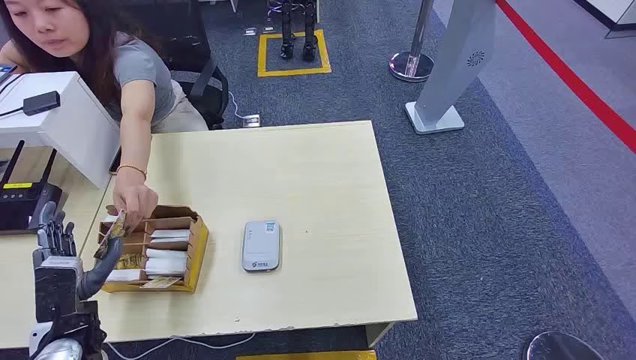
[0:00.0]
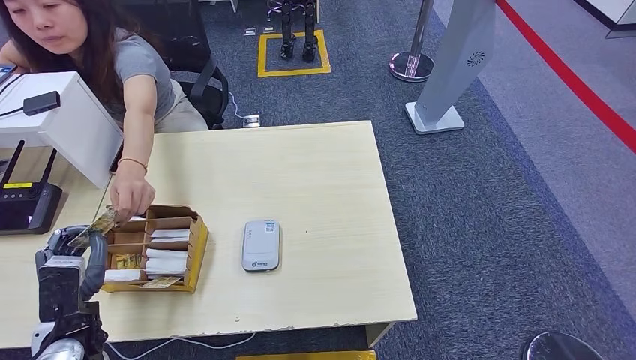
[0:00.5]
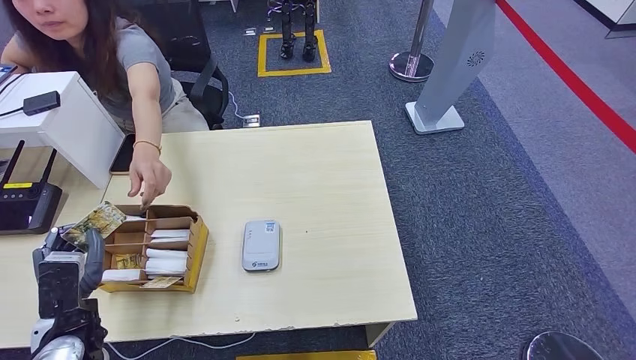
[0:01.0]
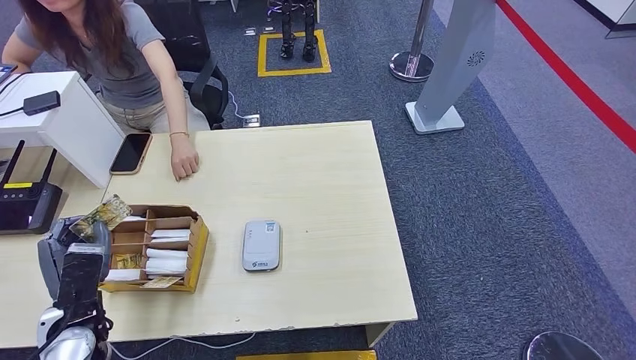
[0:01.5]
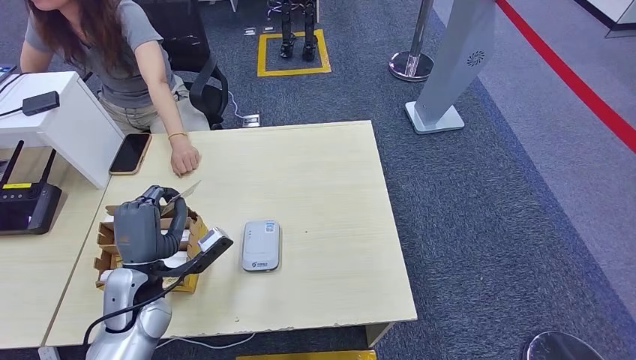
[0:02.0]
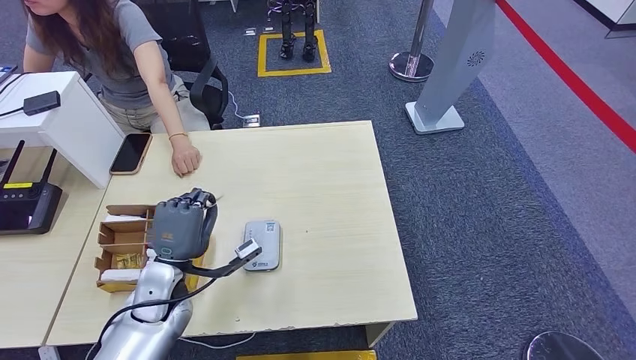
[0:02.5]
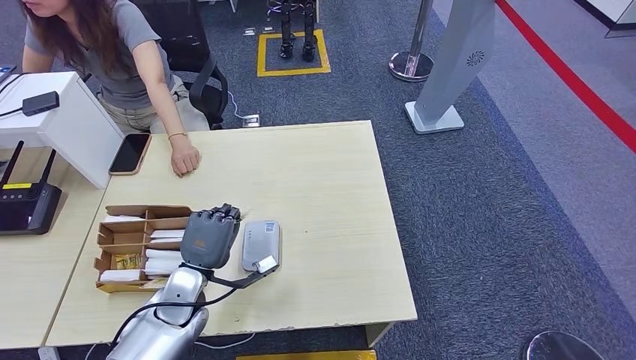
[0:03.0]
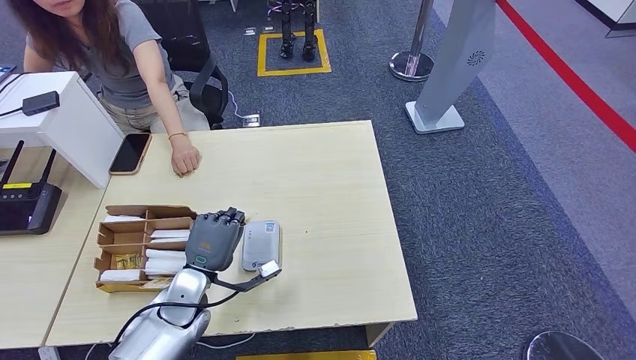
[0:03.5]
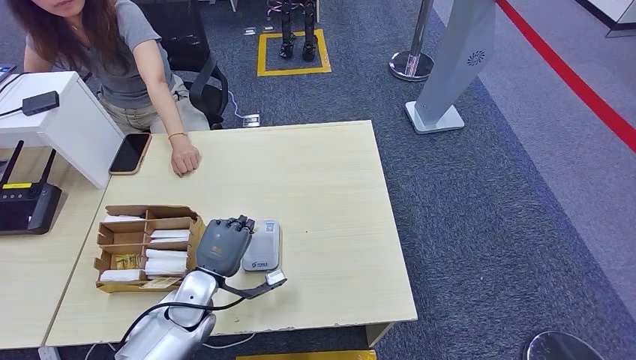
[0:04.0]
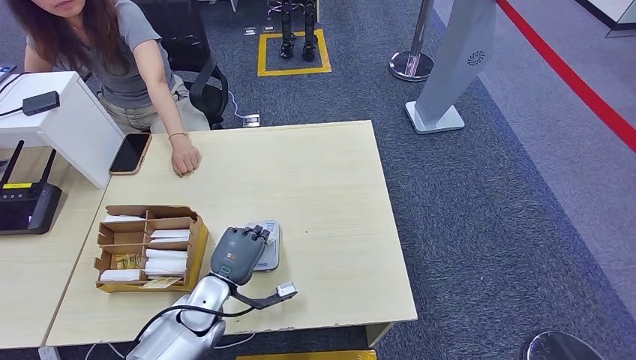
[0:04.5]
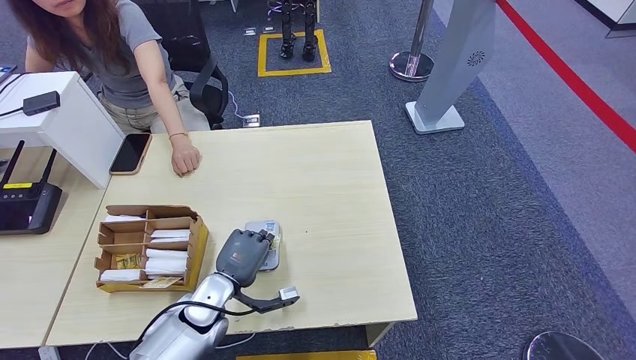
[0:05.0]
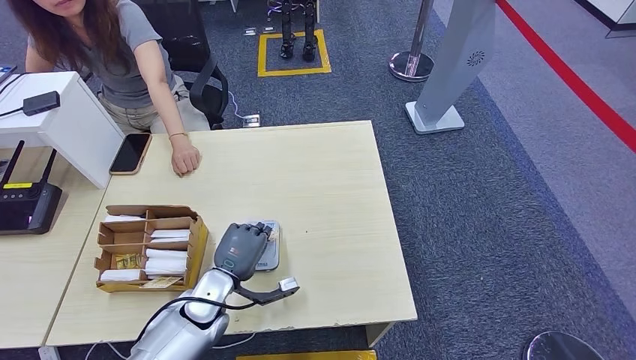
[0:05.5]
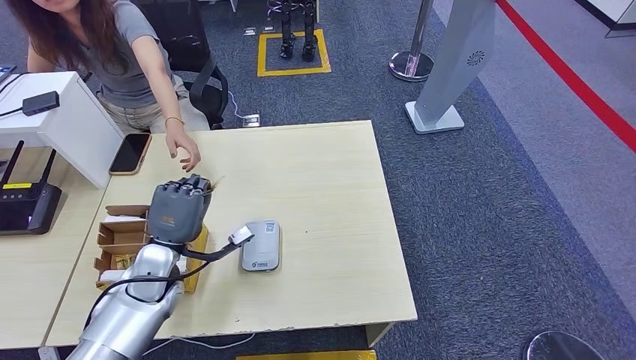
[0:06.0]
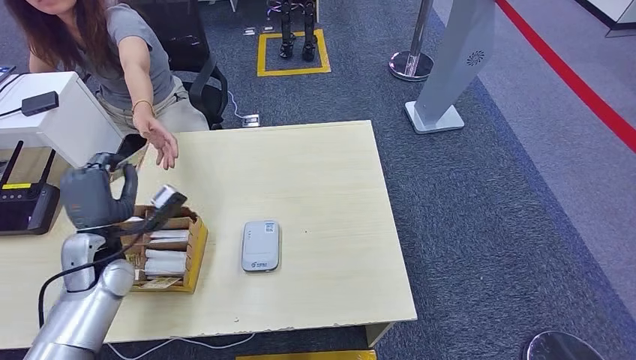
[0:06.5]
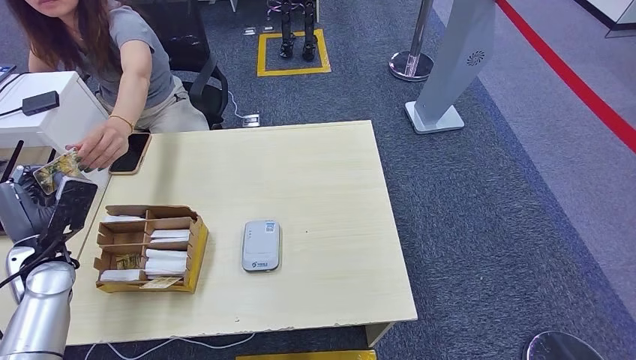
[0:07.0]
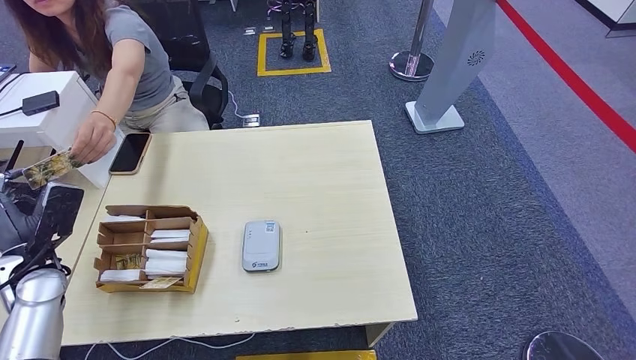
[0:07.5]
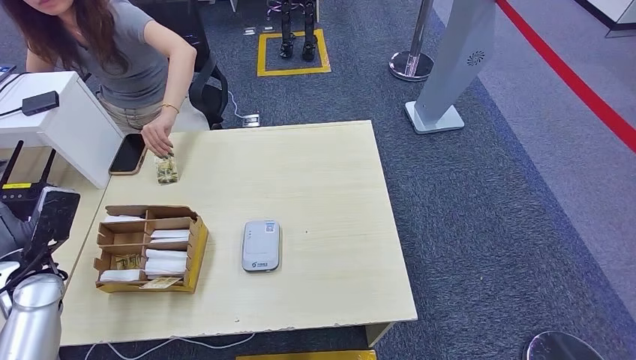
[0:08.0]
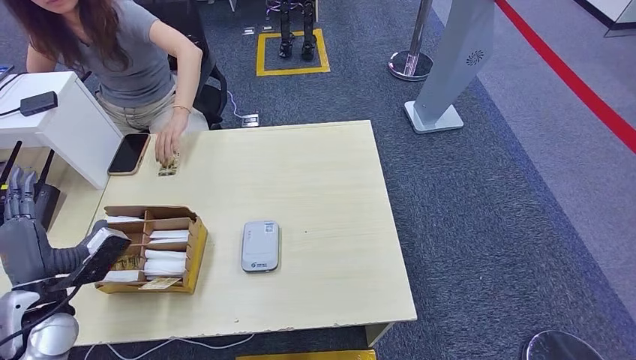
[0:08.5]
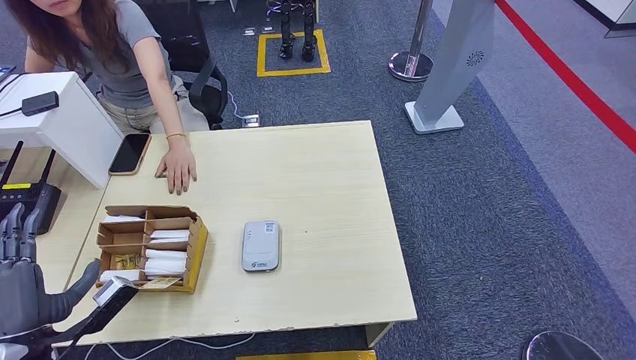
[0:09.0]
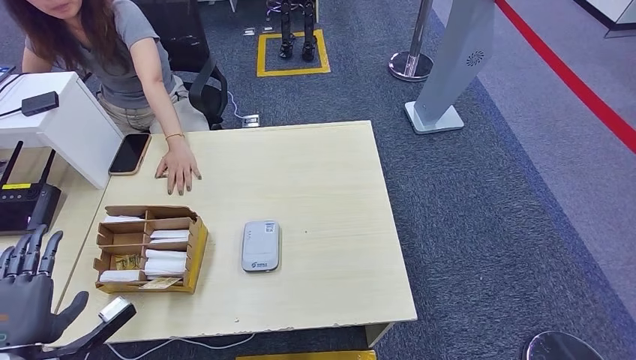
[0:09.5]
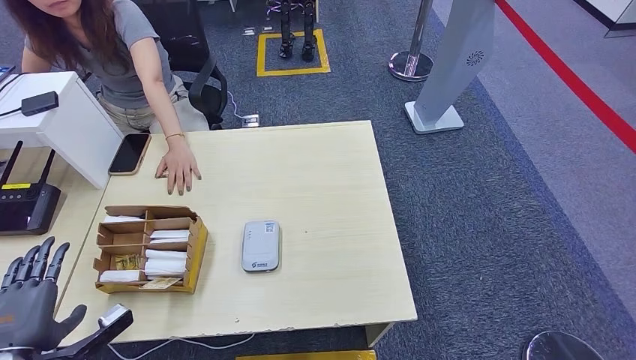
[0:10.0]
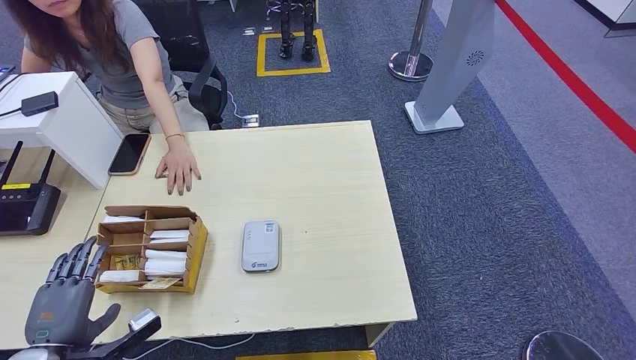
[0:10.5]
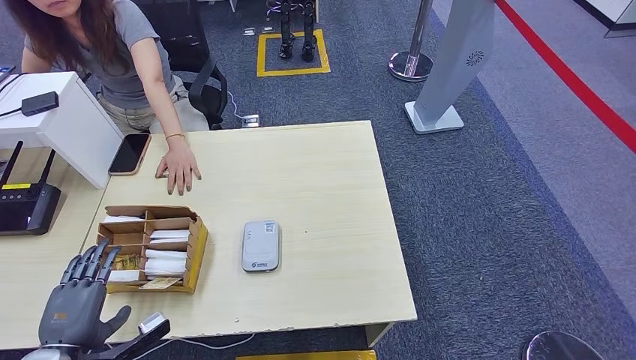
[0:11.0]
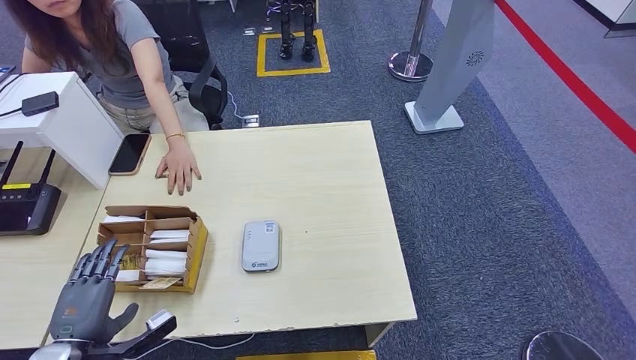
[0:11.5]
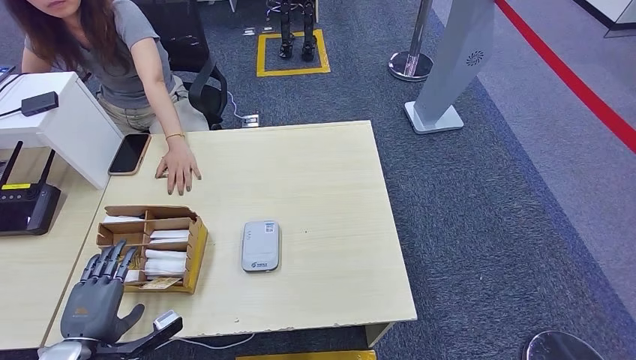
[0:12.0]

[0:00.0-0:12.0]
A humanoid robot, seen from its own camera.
Step, 0:00.0 to 0:01.0: Take the ID card from the person's hand.
Step, 0:01.5 to 0:05.0: Place the ID card on the card reader.
Step, 0:05.5 to 0:07.5: Pick up the room key from the key card box.
0:02.0 to 0:04.0: The left hand shifts roughly 10 cm to the right and downward.
0:04.0 to 0:06.0: The left hand goes roughly 10 cm upward and to the left.
0:06.0 to 0:08.0: The left hand goes some 20 cm to the left.
0:08.0 to 0:10.0: The left hand heads backward, covering some 15 cm.
0:10.0 to 0:12.0: The left hand moves to the right, roughly 5 cm.

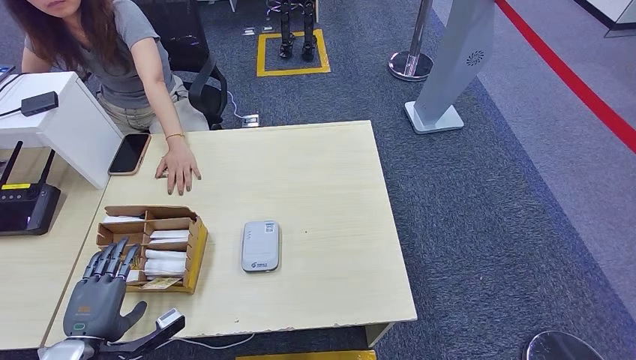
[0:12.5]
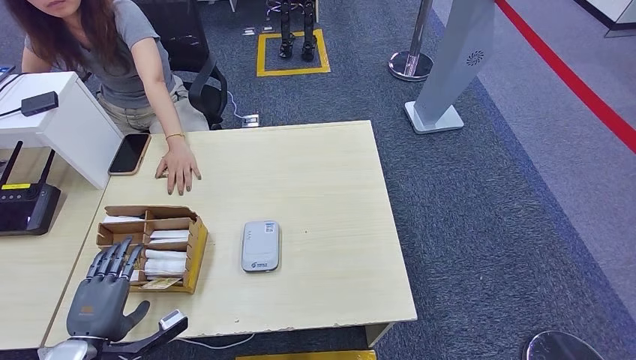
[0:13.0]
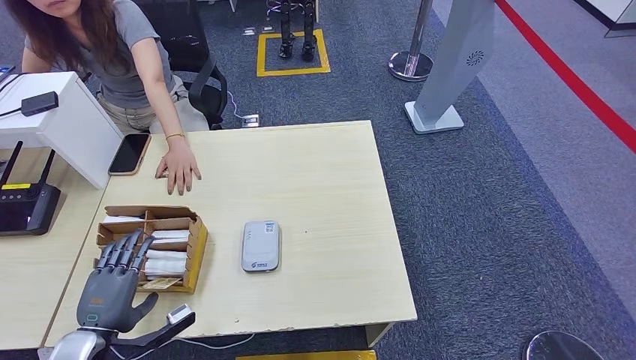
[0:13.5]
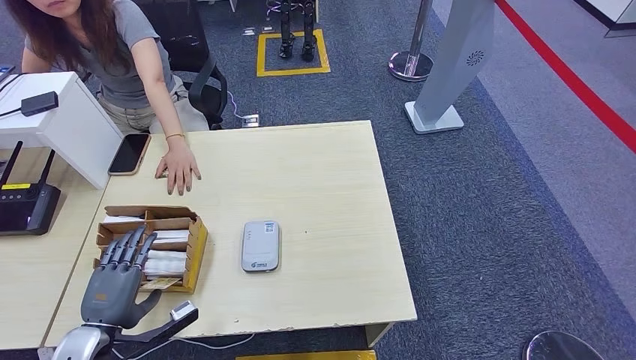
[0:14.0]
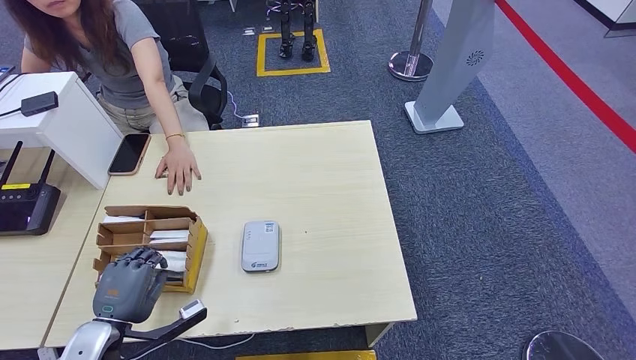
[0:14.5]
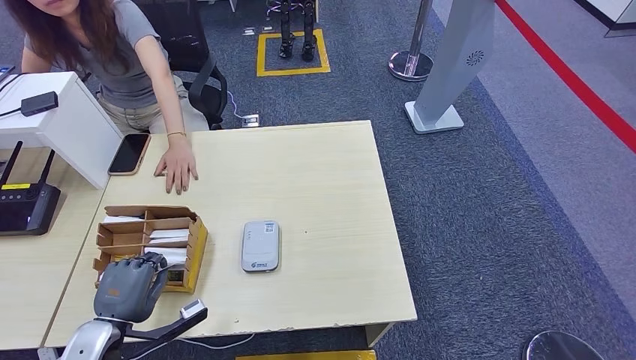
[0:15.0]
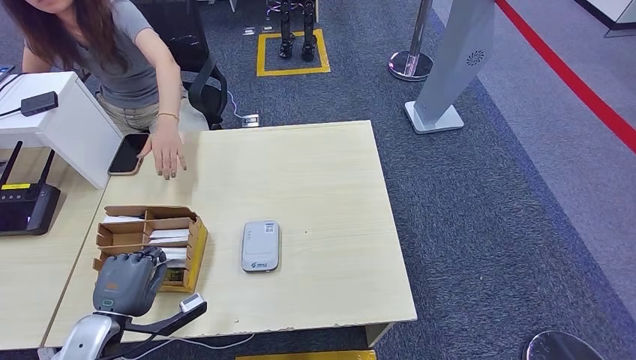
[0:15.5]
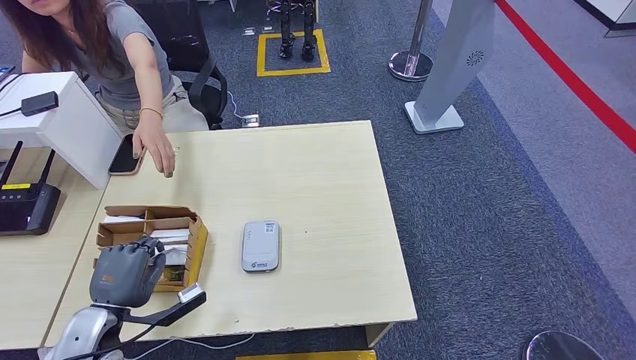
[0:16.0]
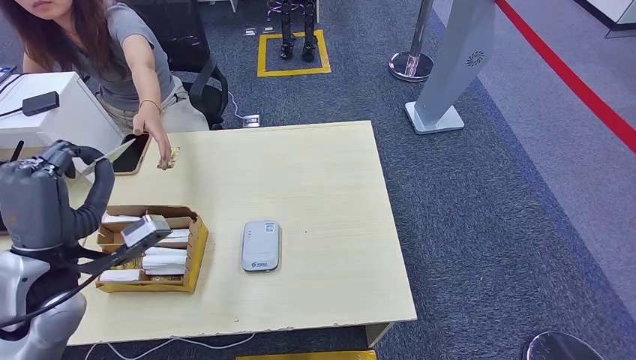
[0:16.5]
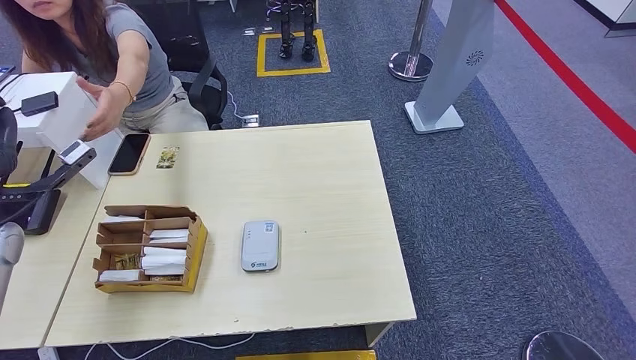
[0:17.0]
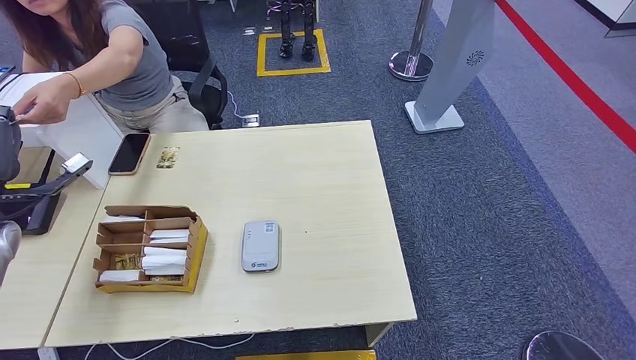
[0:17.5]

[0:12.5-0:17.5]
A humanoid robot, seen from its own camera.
Step, 0:12.5 to 0:15.5: Hand the ID card to the person.
Step, 0:16.0 to 0:17.5: Hand the room key to the person.
0:12.5 to 0:15.0: The hands make only small movements.
0:15.0 to 0:17.5: The left hand travels forward, upward and to the left by about 30 cm.
